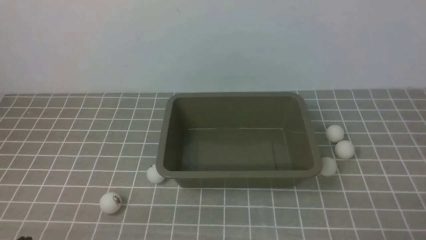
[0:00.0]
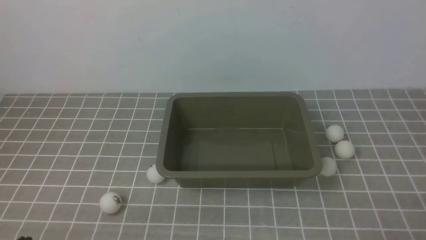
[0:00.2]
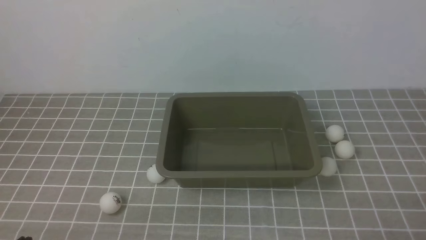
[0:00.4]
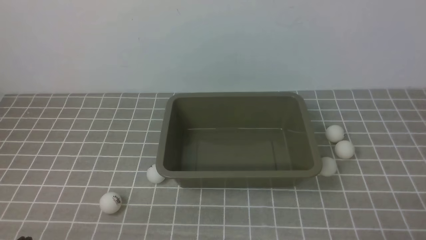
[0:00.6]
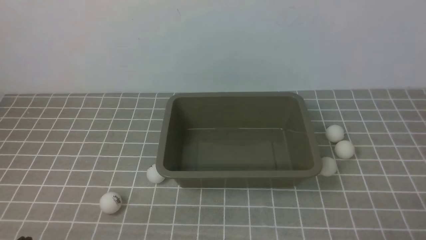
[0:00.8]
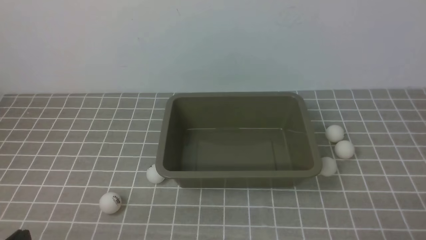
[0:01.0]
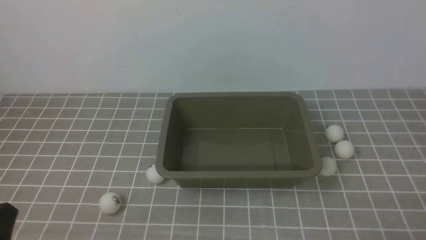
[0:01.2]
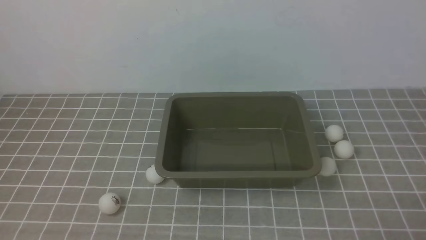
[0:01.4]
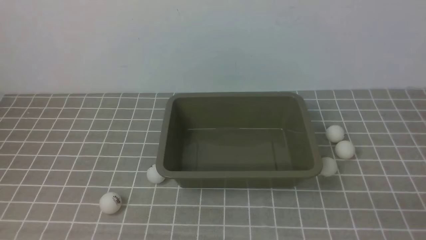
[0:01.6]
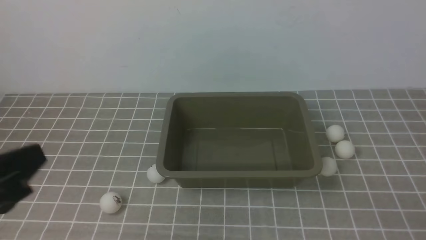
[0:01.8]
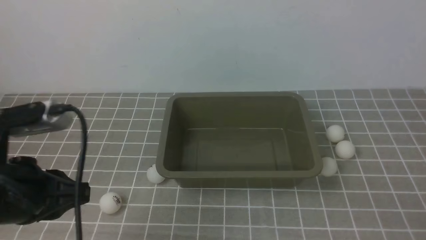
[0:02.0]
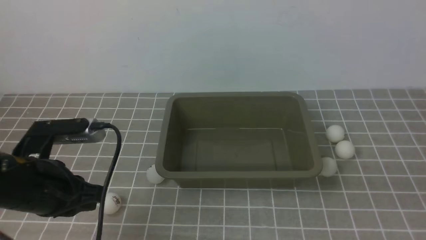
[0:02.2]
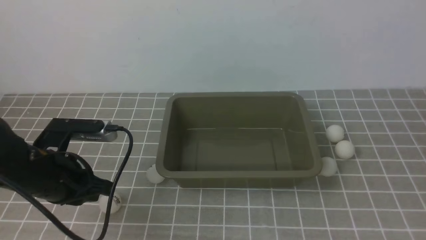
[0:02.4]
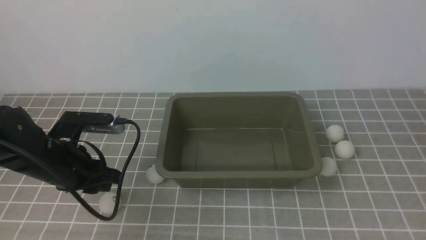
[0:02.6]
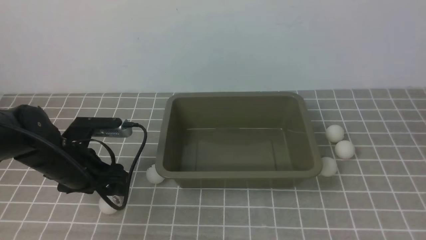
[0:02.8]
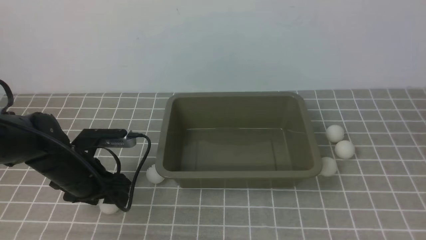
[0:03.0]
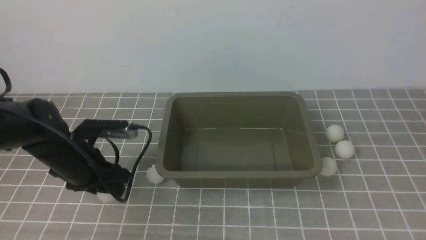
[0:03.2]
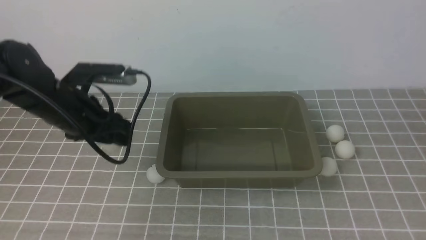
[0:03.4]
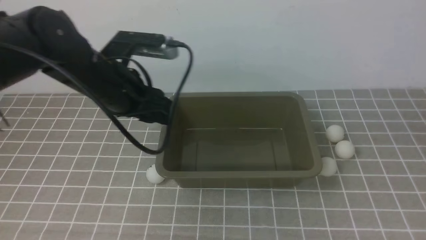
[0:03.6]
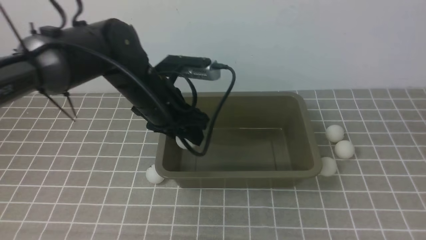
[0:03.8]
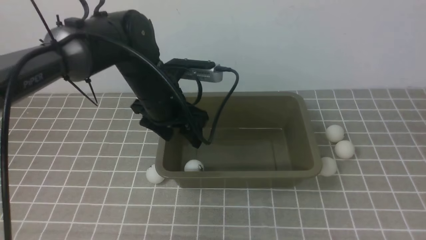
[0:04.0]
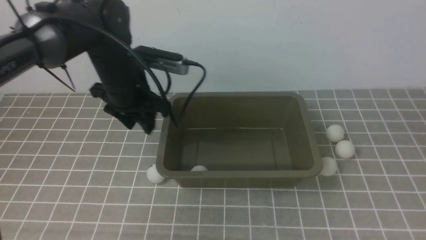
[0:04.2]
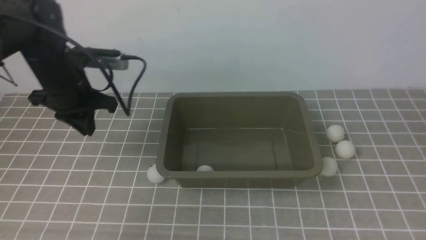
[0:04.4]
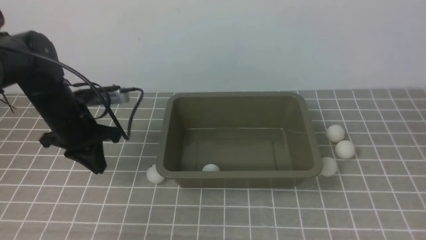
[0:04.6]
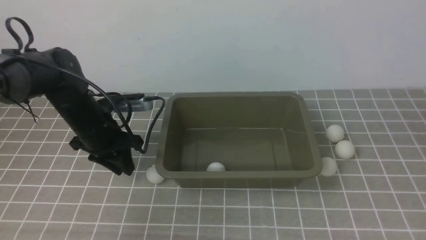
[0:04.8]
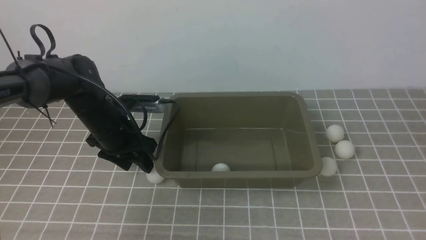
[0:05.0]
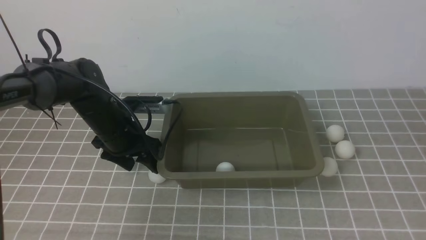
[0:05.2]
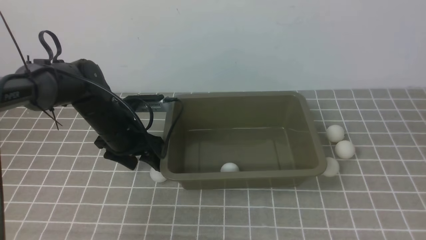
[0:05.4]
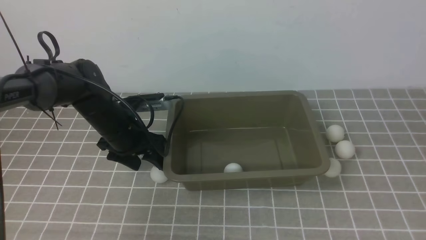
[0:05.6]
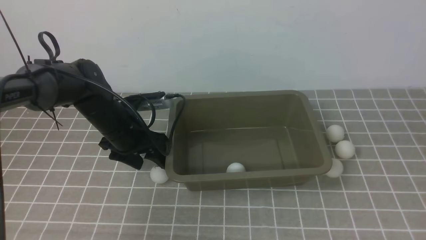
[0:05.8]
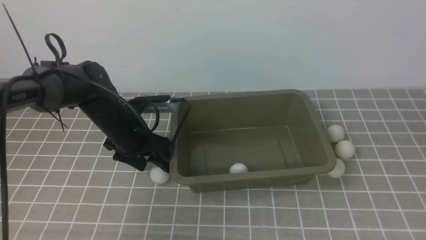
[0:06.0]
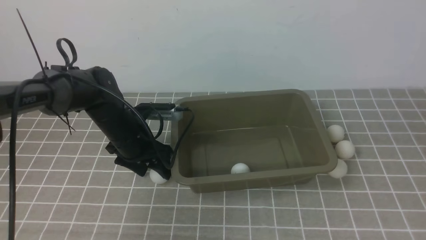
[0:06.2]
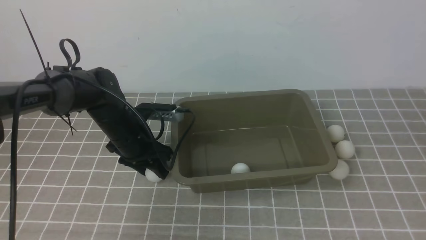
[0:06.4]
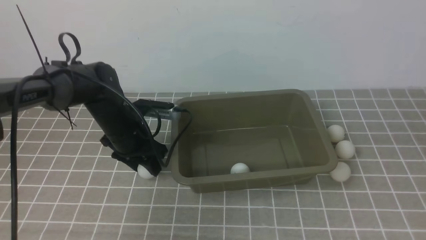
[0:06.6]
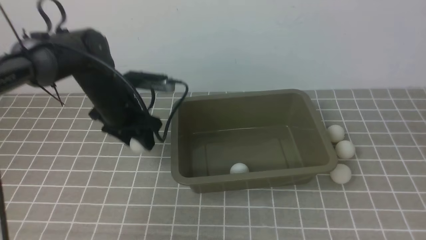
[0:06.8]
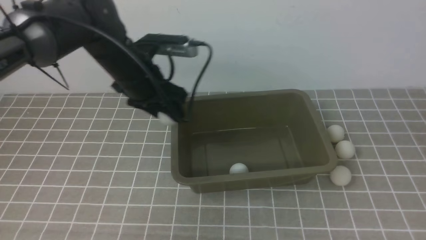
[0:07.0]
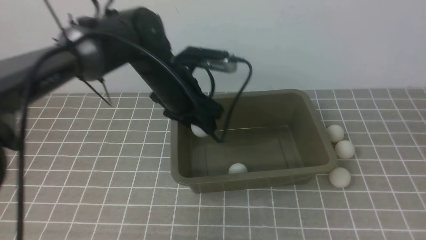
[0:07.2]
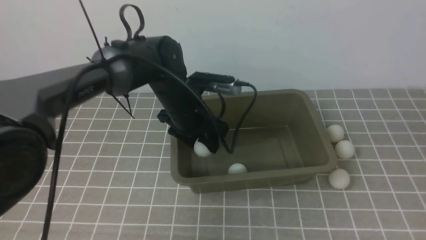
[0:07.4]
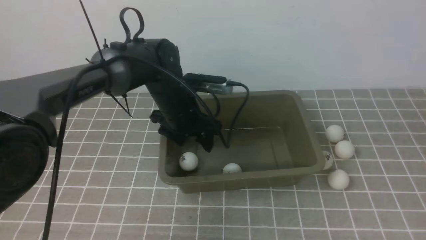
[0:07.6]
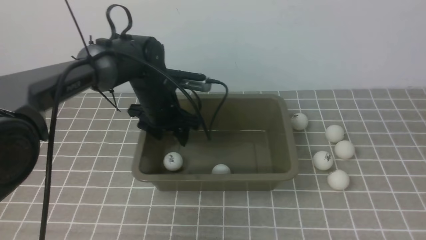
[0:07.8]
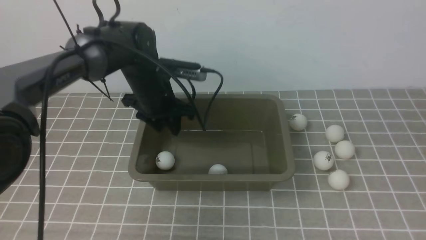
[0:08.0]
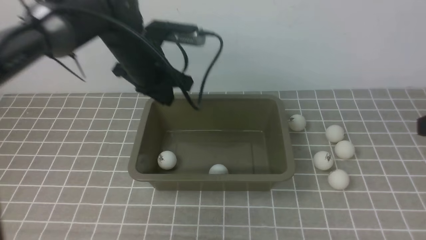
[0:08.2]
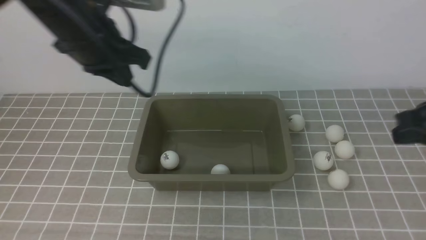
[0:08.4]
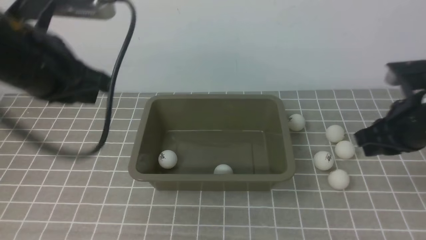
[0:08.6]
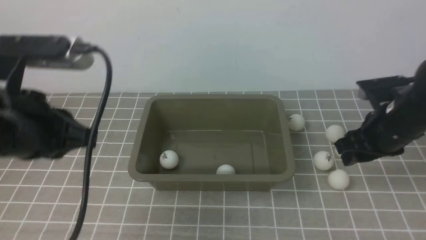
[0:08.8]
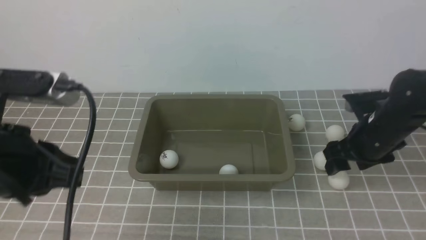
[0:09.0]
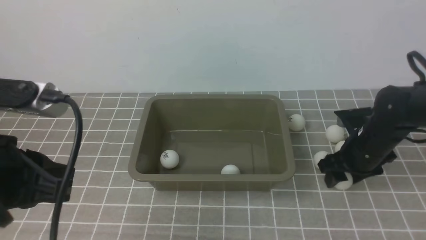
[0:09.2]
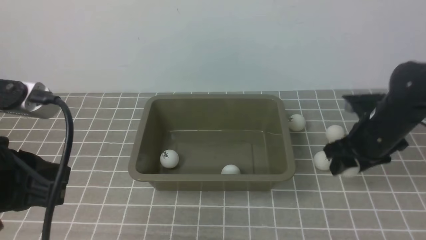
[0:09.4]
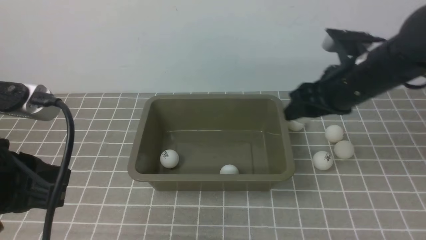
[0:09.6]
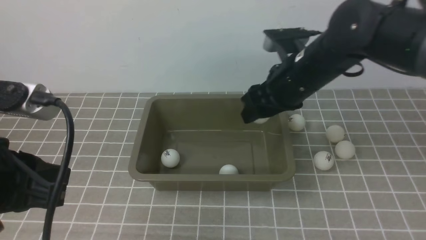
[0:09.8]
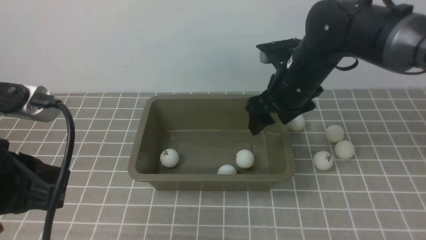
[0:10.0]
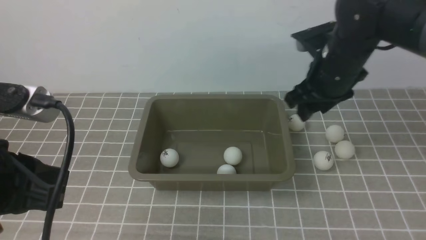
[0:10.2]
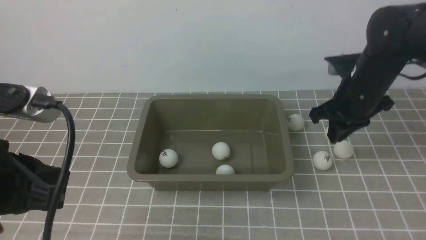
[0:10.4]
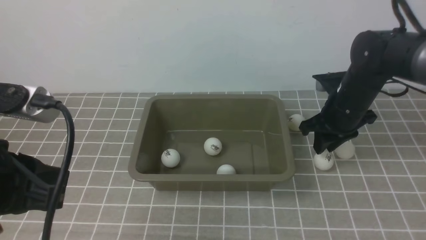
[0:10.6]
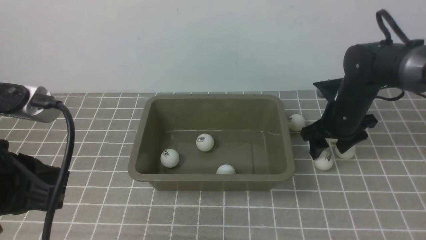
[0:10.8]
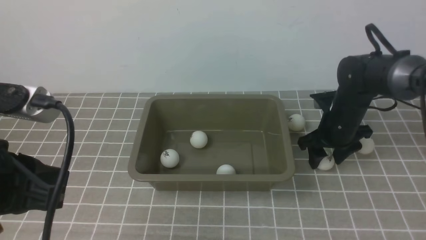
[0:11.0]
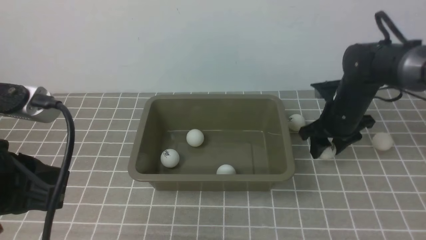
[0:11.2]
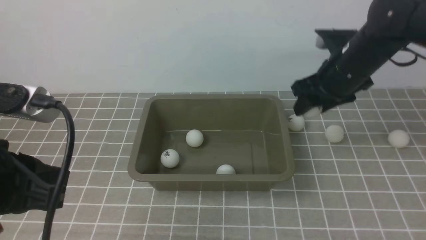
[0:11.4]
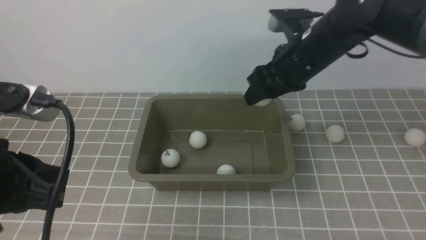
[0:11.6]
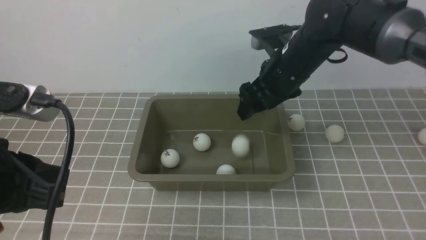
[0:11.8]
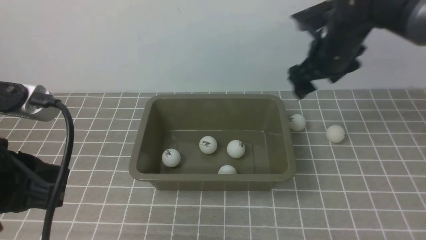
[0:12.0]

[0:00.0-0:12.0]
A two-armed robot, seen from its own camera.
Step, 0:00.0 to 0:03.2: use the left arm to clamp the table tennis ball closest to it.
Step, 0:03.4 to 0:03.8: use the left arm to put the table tennis ball into the box.
Step, 0:04.2 to 0:06.8: use the left arm to clamp the table tennis ball closest to it.
Step, 0:07.0 to 0:07.8: use the left arm to put the table tennis ball into the box.
Step, 0:08.0 to 0:09.4: use the right arm to clamp the table tennis ball closest to it.
Step, 0:09.6 to 0:09.8: use the right arm to put the table tennis ball into the box.
Step, 0:10.0 to 0:11.2: use the right arm to clamp the table tennis ball closest to it.
Step, 0:11.4 to 0:11.8: use the right arm to put the table tennis ball into the box.
0:01.6 to 0:03.0: The left gripper moves forward and downward, about 25 cm, and opens its fingers. The right gripper goes some 20 cm upward.
0:03.0 to 0:04.4: The left gripper travels upward and forward by some 15 cm, reaches some 10 cm to the right, then returns, and closes its fingers.
0:04.4 to 0:06.0: The left gripper travels downward by roughly 10 cm, and opens up.
0:06.0 to 0:07.6: The left gripper goes some 10 cm to the right.
0:07.6 to 0:09.0: The right gripper shifts about 30 cm forward and downward, and opens up, while the left gripper is displaced backward, to the left and upward by roughly 30 cm, and closes up.
0:09.0 to 0:10.4: The right gripper is displaced upward, to the left and forward by approximately 10 cm, and closes its fingers.
0:10.4 to 0:12.0: The right gripper goes downward and returns, approximately 10 cm each way, and opens.

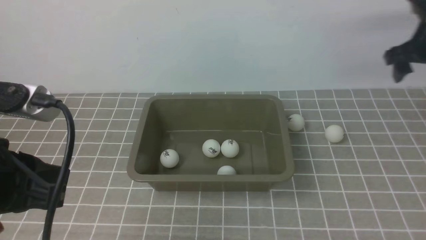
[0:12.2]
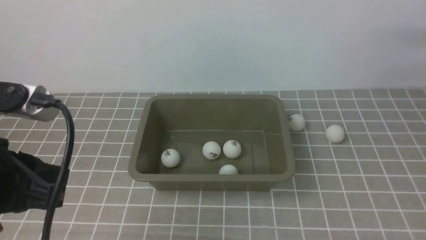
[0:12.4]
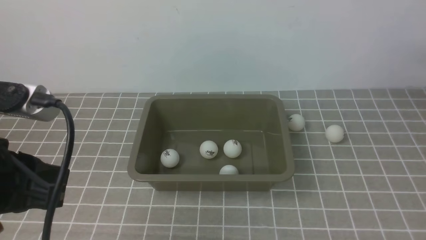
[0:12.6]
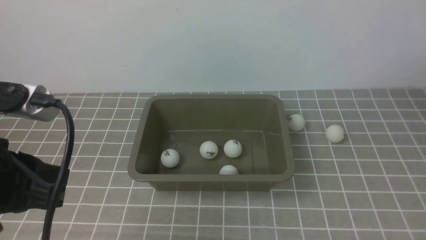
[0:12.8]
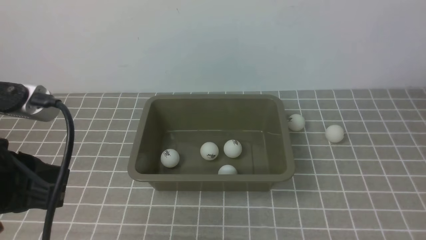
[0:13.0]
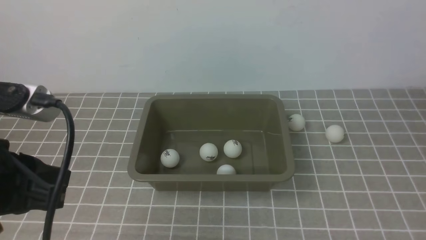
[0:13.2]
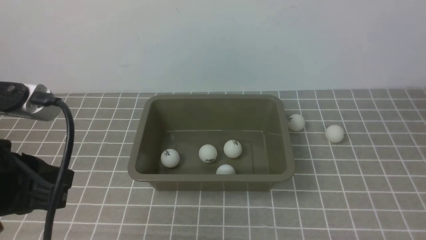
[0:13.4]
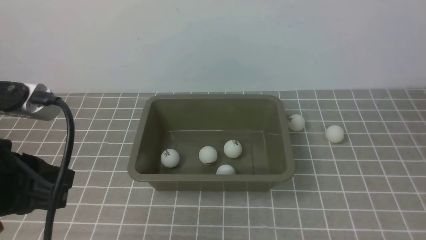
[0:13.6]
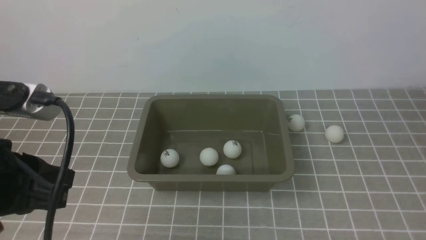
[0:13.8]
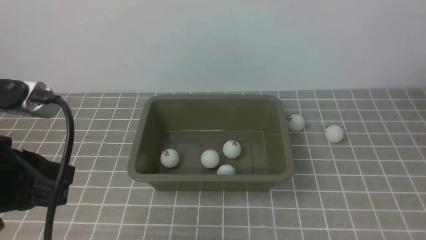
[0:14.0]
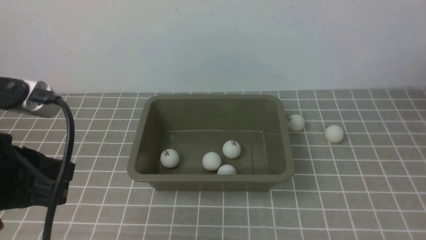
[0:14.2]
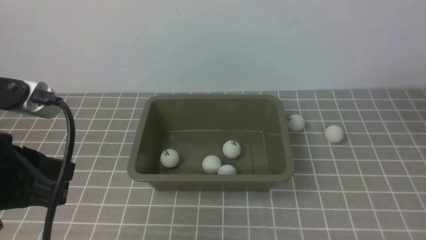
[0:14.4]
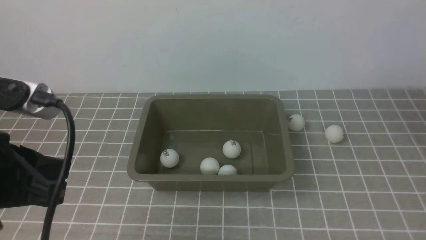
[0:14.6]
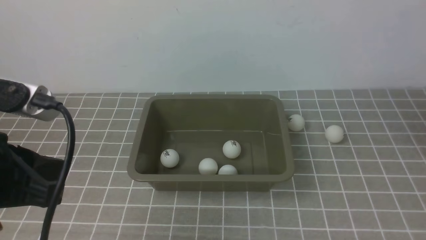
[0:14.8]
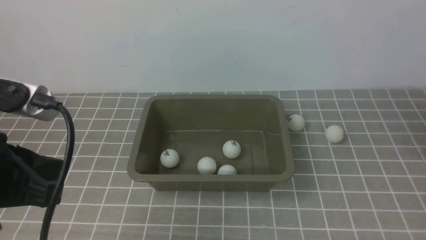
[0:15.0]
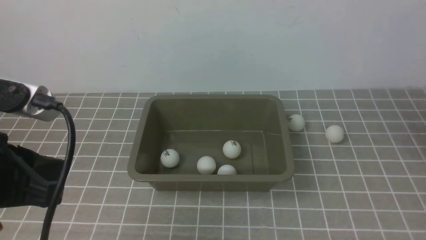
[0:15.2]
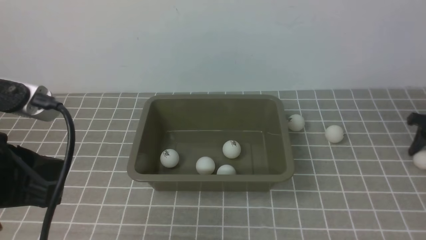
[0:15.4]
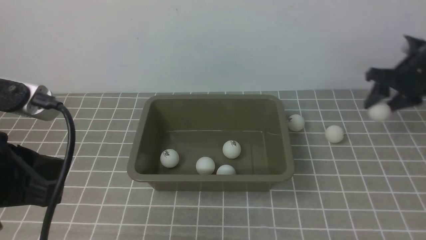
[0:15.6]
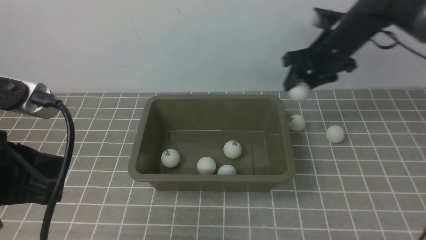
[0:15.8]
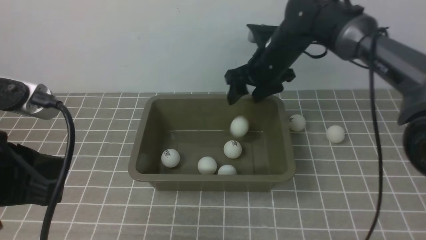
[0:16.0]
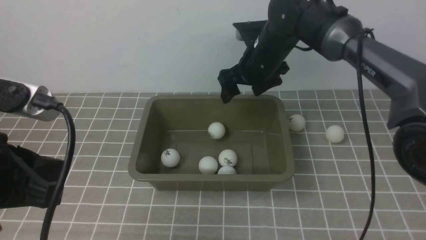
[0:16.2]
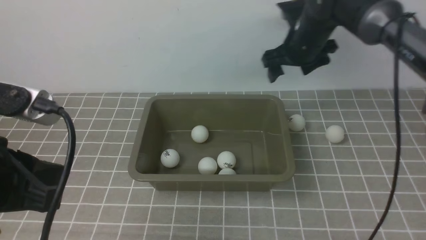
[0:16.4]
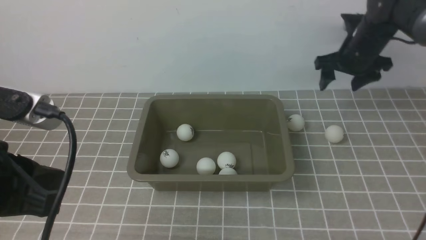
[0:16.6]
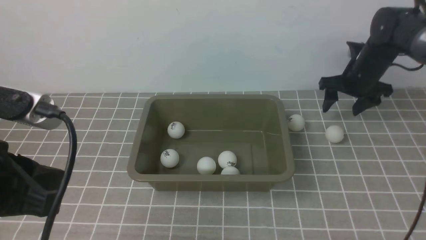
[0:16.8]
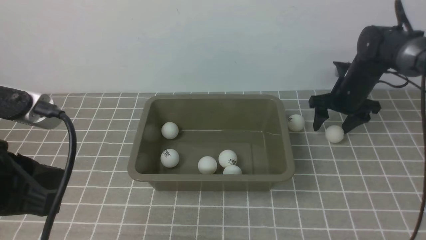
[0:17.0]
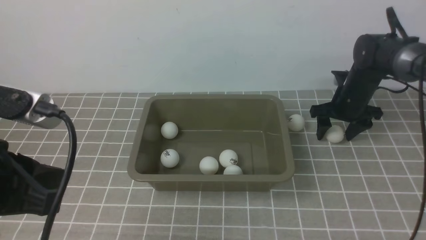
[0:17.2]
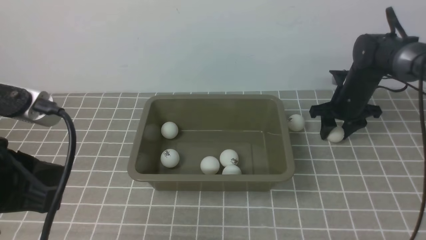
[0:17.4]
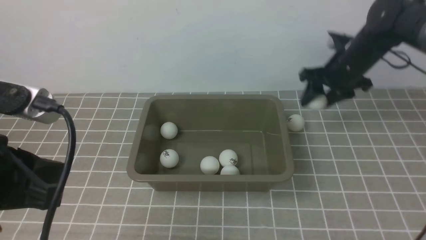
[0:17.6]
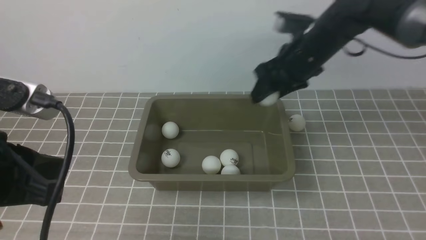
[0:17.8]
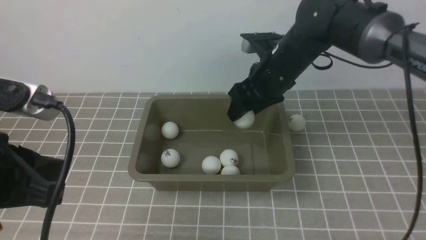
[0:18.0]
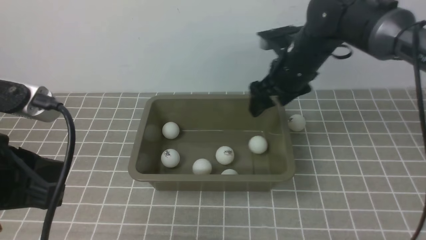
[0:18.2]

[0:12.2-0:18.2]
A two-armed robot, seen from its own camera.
Step, 0:12.2 to 0:15.4: use the right arm to clamp the table tennis ball closest to it.
Step, 0:15.6 to 0:16.2: use the right arm to put the table tennis ball into the box.
Step, 0:16.4 to 0:17.4: use the right arm to clamp the table tennis ball closest to it.
Step, 0:17.6 to 0:18.2: use the right arm to put the table tennis ball into the box.
0:12.2 to 0:13.8: The right gripper heads to the right and downward, covering some 30 cm.
0:15.2 to 0:16.6: The right gripper is displaced to the left and forward by approximately 25 cm.
0:16.6 to 0:18.2: The right gripper heads to the left and backward, covering roughly 10 cm.
